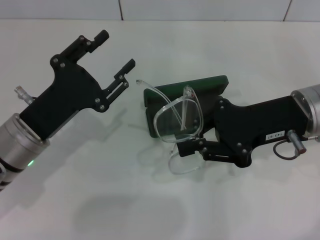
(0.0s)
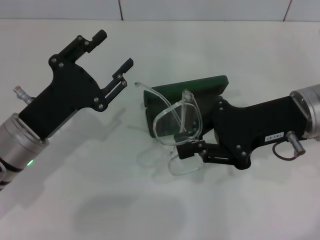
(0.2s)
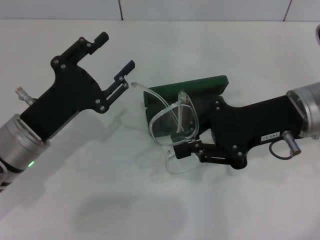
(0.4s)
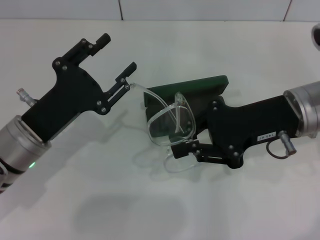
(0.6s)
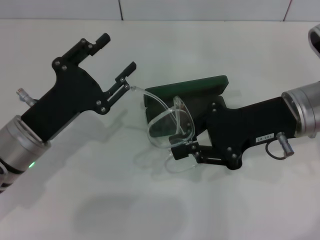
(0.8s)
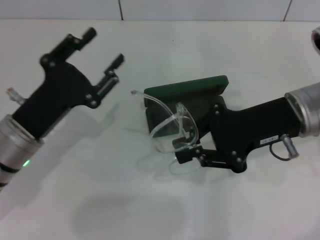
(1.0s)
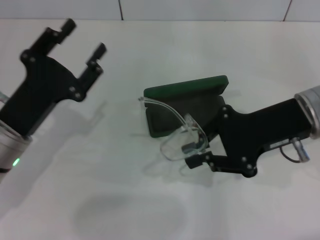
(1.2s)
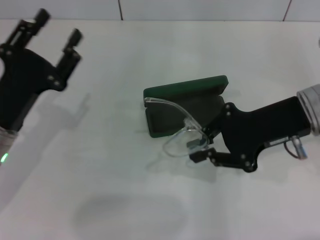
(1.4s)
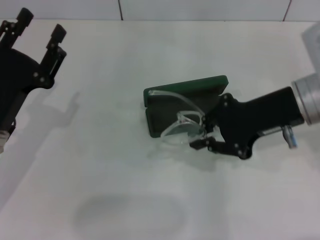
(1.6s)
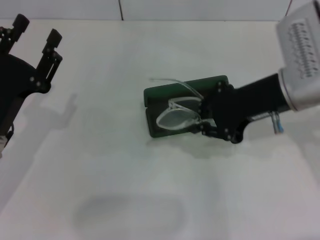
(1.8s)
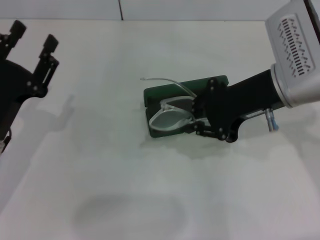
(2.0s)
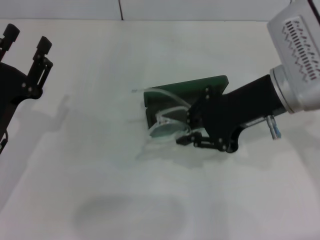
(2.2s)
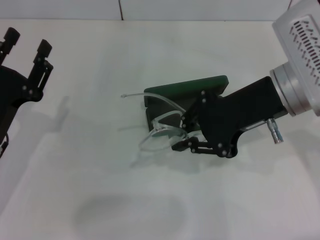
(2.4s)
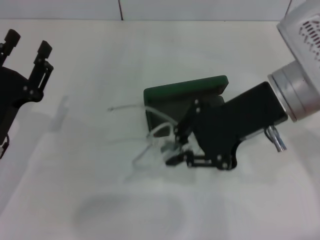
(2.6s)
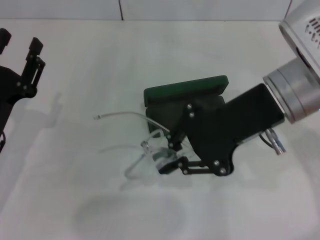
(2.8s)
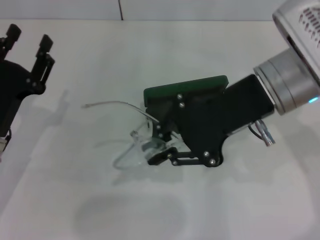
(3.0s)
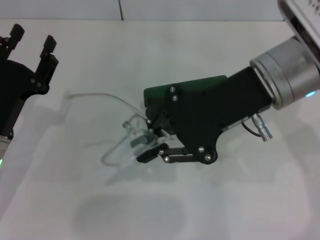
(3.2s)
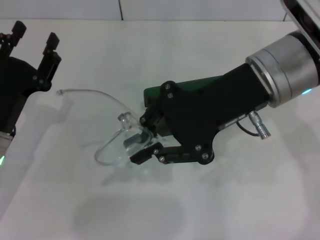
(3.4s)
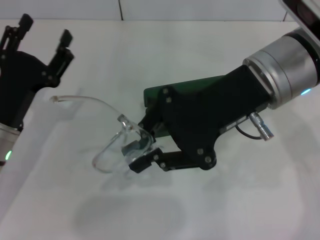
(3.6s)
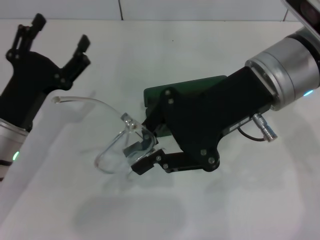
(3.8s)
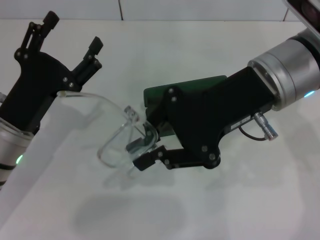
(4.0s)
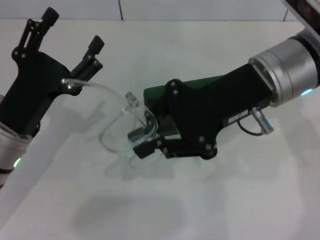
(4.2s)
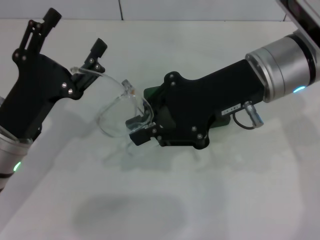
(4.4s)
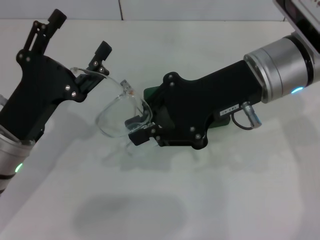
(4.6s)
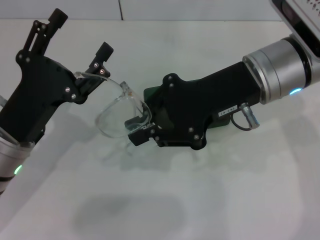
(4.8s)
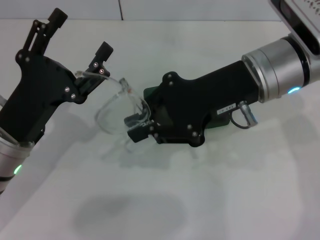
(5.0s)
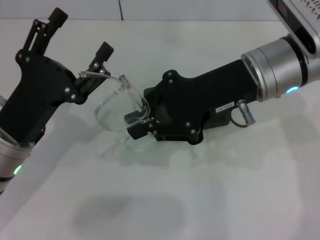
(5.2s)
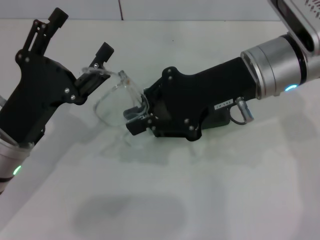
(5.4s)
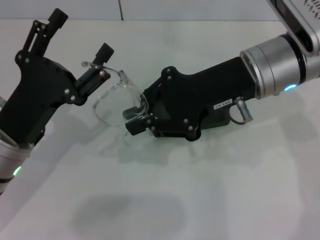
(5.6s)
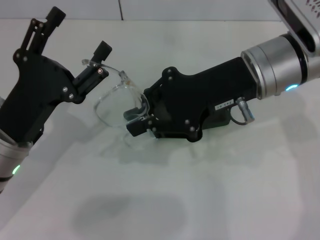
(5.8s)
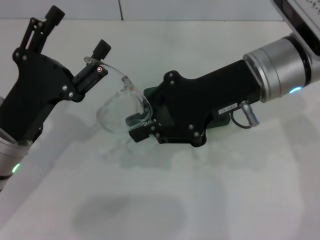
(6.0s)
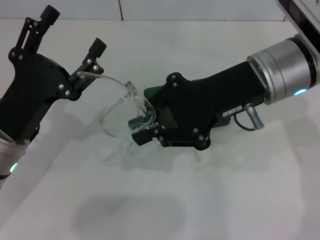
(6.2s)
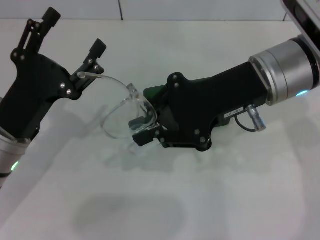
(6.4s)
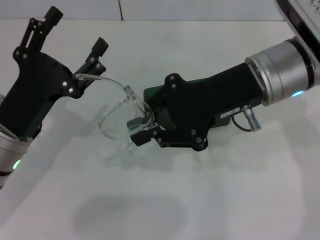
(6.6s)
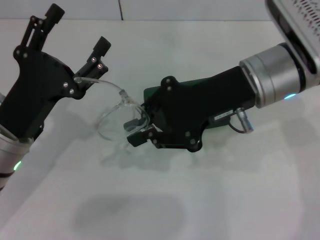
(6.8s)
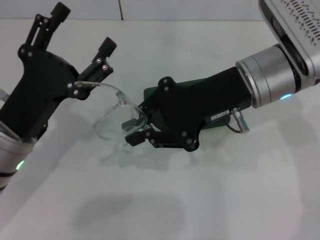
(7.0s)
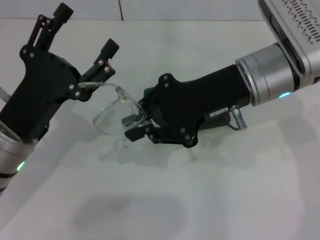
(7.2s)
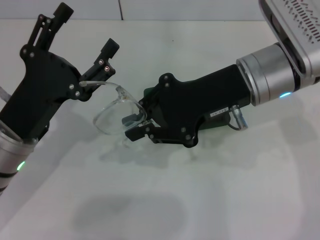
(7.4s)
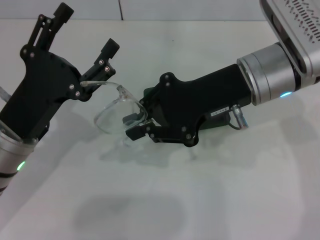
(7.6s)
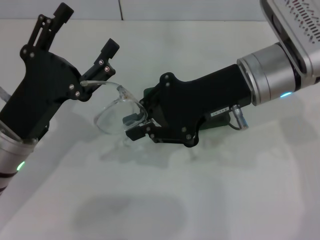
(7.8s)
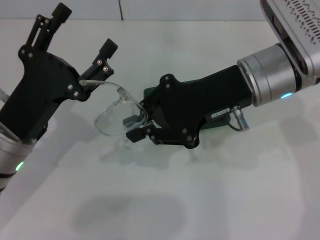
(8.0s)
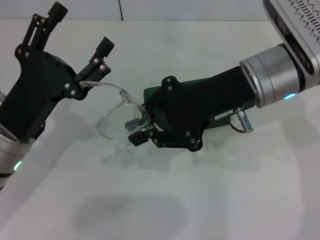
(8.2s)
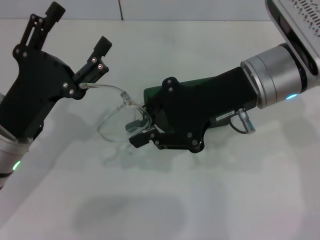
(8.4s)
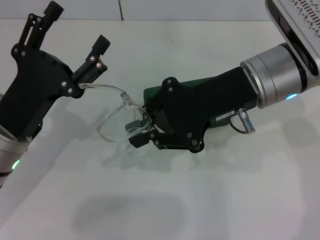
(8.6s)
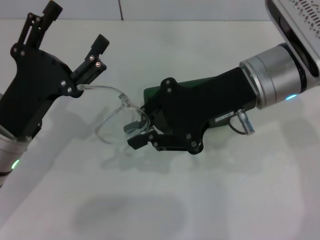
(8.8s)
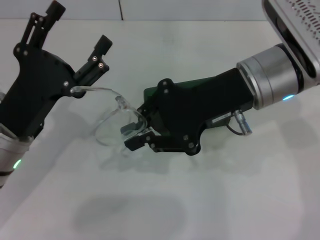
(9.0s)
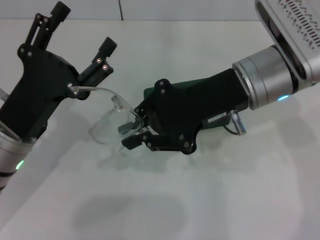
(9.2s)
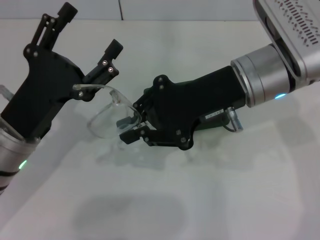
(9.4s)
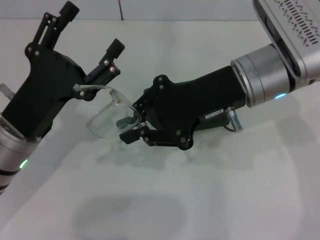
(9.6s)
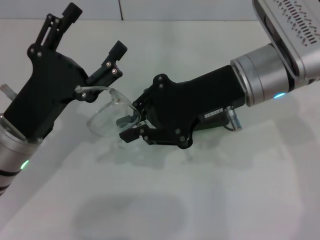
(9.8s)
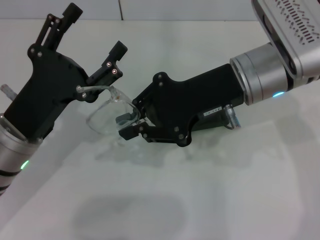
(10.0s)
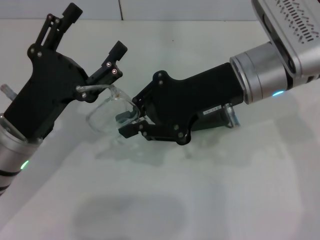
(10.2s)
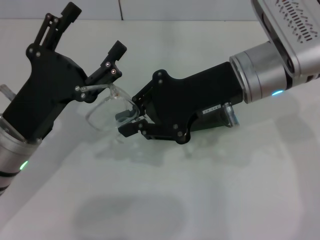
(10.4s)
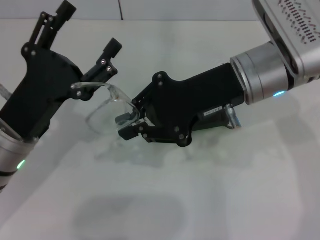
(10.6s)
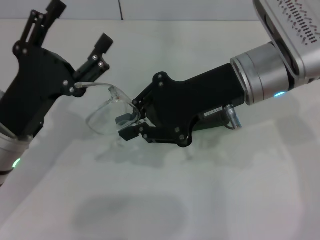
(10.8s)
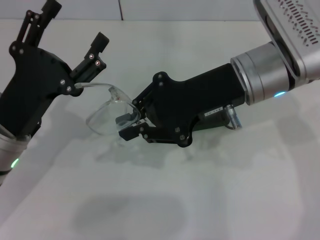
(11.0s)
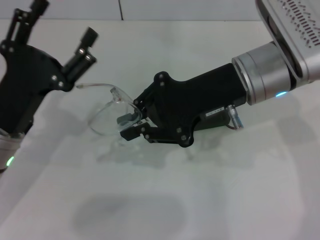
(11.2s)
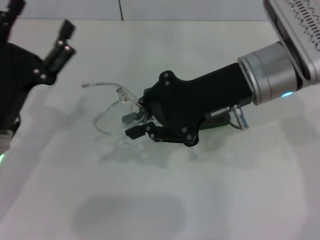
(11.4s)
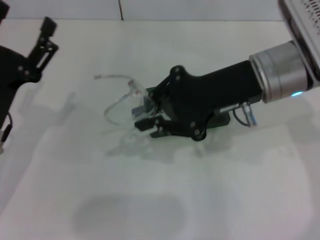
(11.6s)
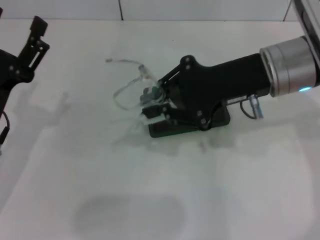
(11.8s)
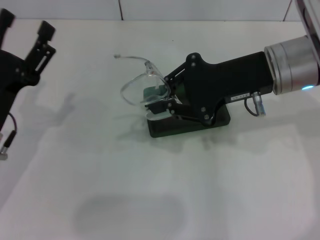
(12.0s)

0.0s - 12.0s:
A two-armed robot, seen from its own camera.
Step, 0.0s - 11.0s: Lift the glasses with your right hand.
1.6s - 3.0s: The right gripper goes some 5 cm to the left.
3.0s - 4.4s: The left gripper opens up.
4.4s - 6.0s: Both grippers stay put.
6.0s - 7.6s: The grippers move only a little.
7.6s - 10.4s: Both grippers stay about where they are.

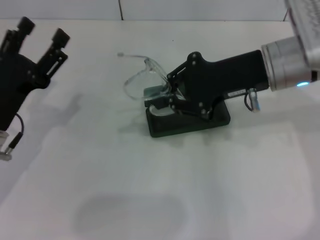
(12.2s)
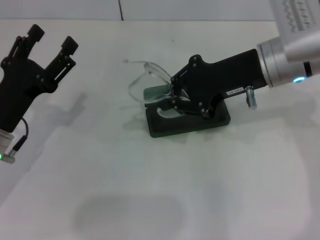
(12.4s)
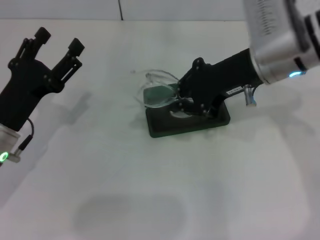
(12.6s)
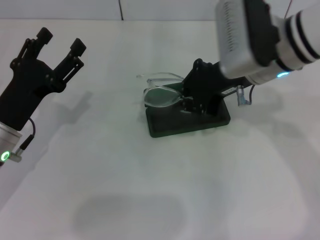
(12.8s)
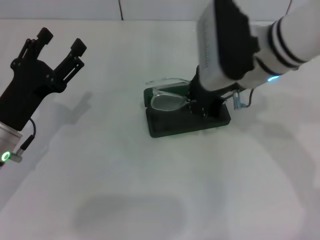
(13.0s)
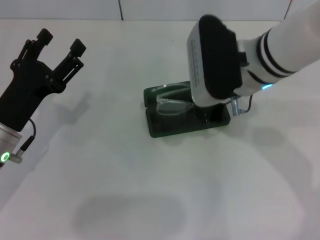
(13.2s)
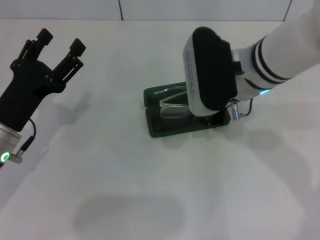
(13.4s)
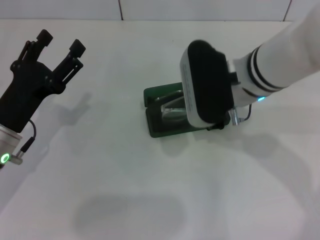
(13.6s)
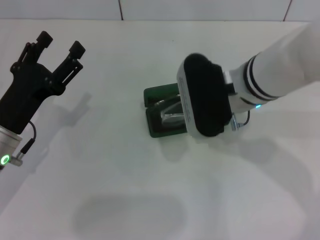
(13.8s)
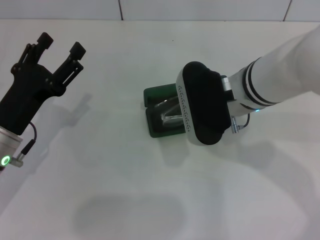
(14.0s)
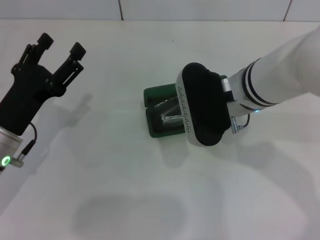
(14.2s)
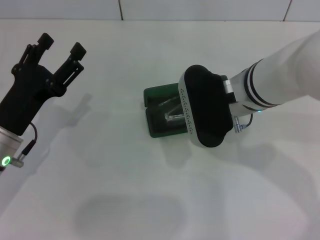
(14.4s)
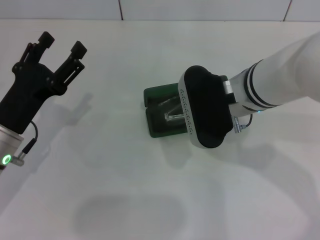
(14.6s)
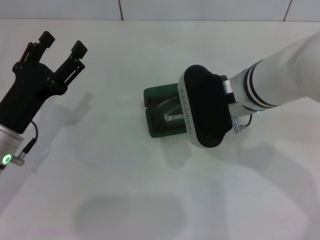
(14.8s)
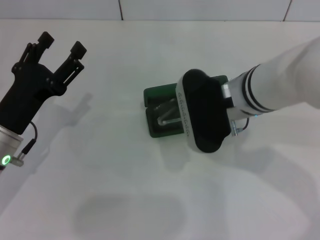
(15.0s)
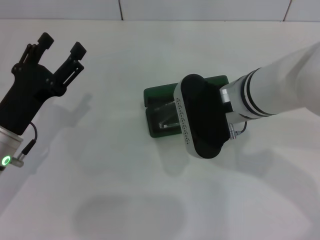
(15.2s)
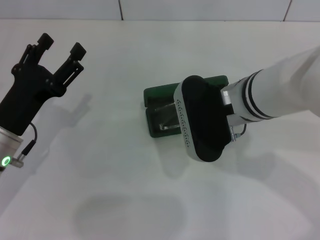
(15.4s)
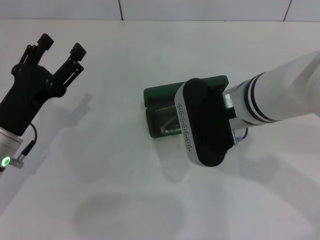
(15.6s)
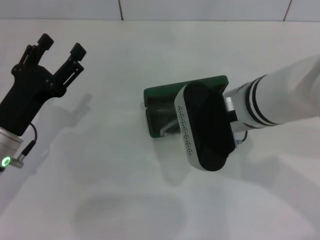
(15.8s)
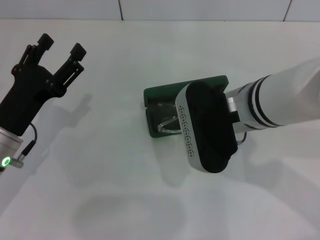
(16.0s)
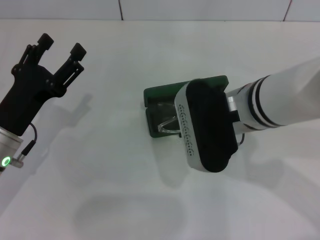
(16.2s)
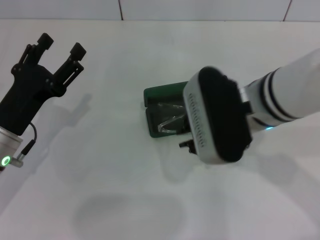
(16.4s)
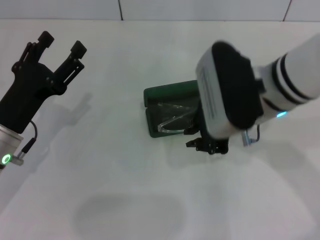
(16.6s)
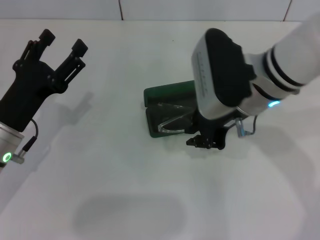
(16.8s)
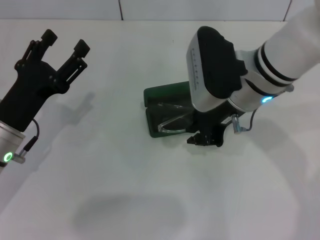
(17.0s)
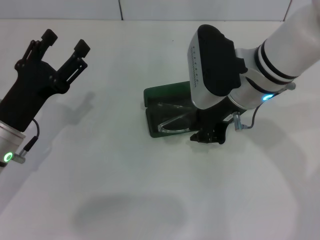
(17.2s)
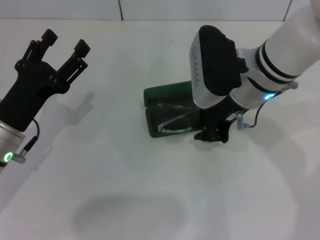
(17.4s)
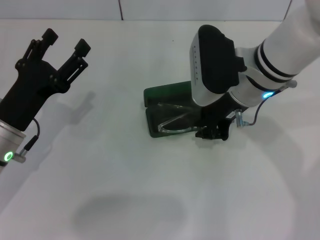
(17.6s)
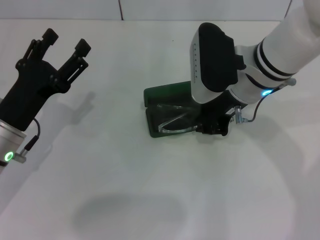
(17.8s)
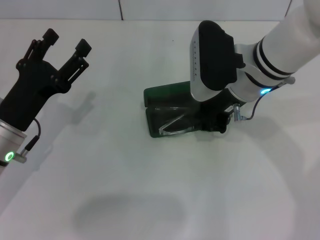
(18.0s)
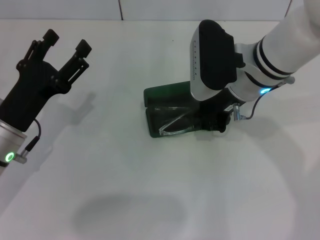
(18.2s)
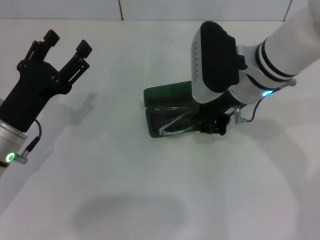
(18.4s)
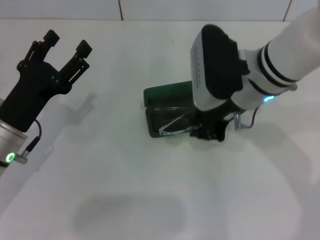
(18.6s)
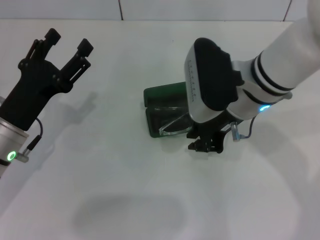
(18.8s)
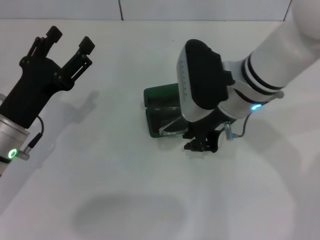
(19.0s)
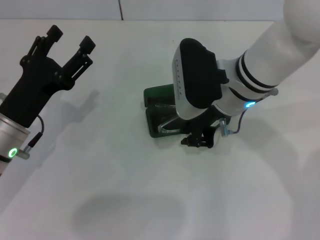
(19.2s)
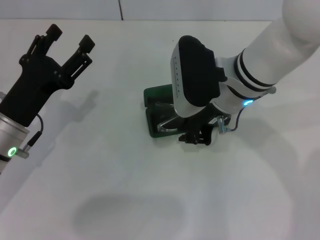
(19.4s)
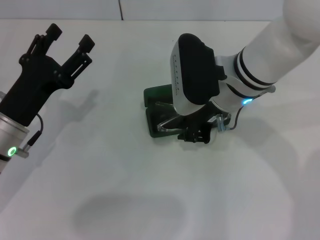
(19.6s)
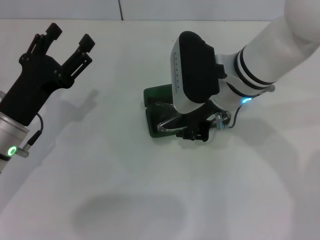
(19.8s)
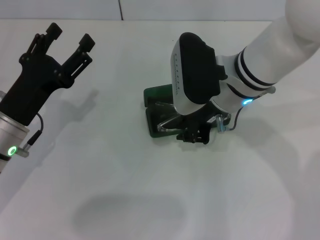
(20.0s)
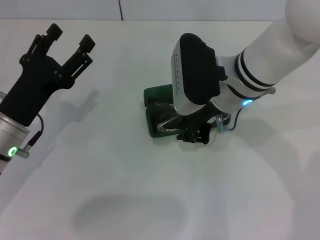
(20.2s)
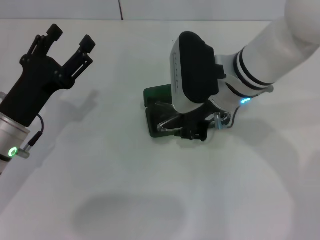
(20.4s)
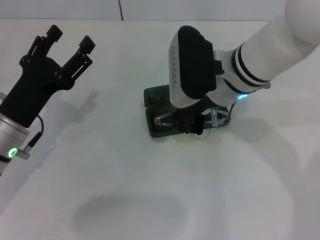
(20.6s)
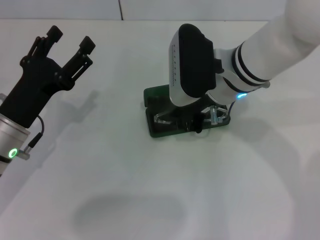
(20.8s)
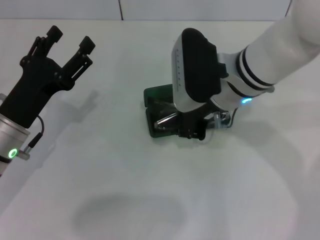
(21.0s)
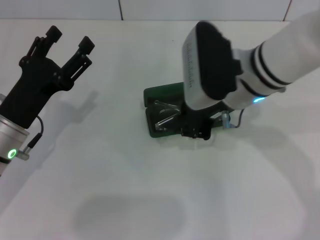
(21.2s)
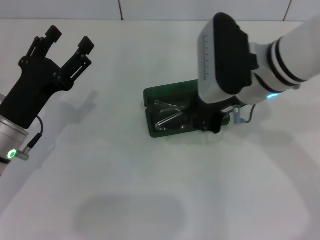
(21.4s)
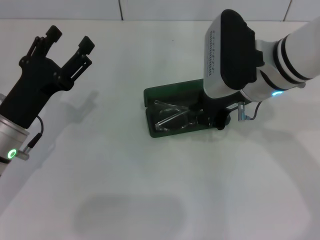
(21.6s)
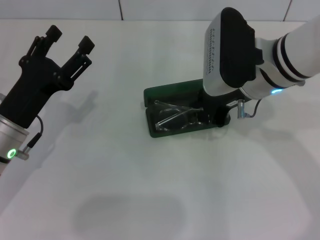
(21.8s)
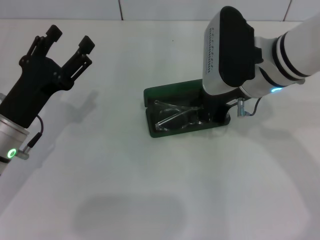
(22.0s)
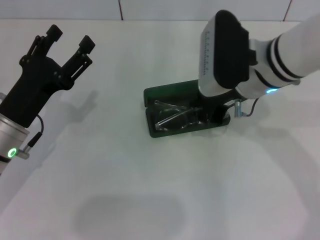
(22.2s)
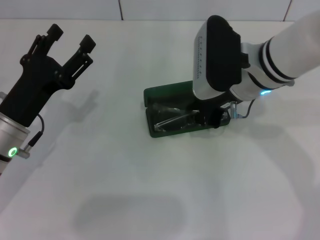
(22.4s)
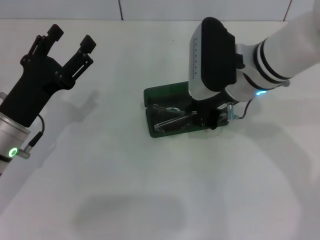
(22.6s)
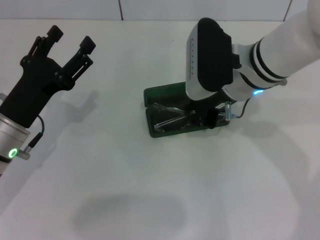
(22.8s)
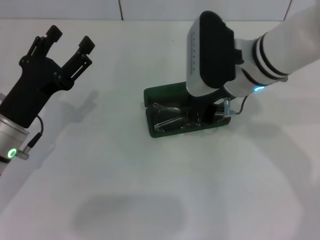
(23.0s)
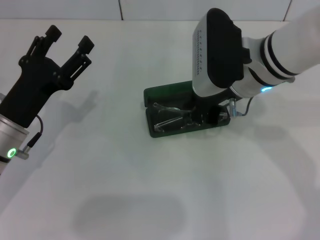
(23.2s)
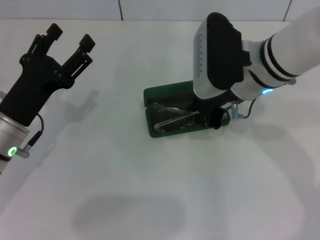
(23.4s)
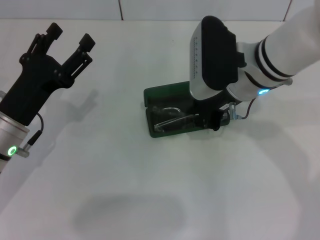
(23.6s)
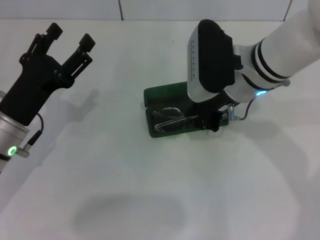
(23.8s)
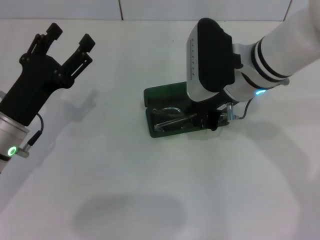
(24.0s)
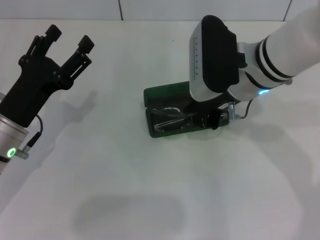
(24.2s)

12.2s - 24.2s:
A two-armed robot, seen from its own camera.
12.2s - 13.8s: The right gripper moves to the left, roughly 5 cm.
13.8s - 16.6s: The grippers make only small movements.
16.6s - 18.2s: The right gripper is displaced forward by about 5 cm.
18.2s - 24.2s: The grippers make only small movements.
